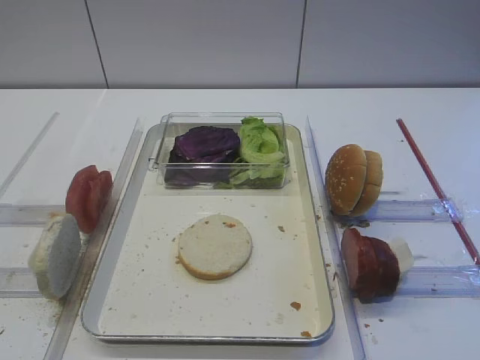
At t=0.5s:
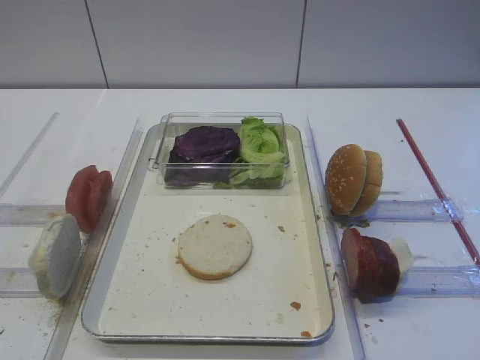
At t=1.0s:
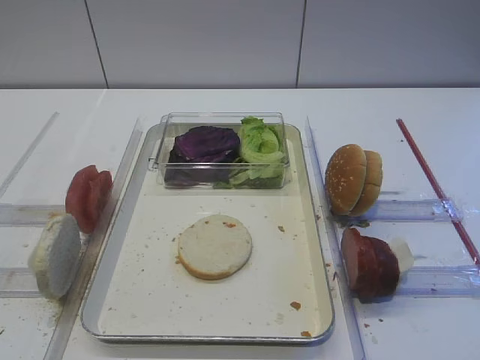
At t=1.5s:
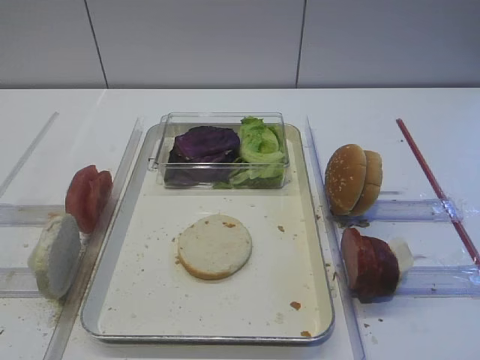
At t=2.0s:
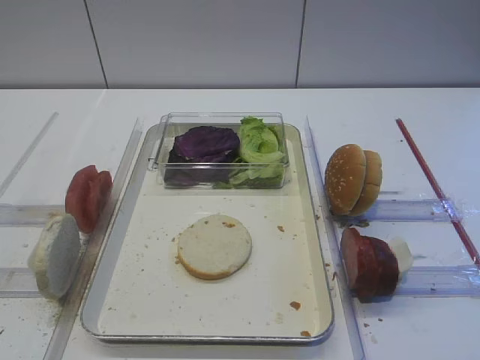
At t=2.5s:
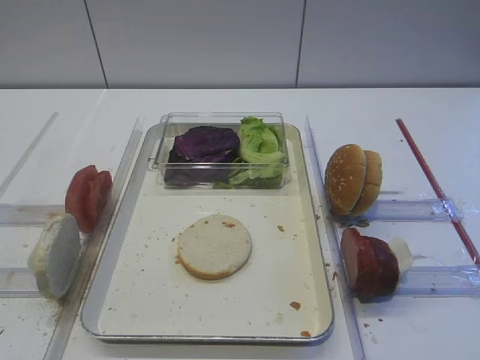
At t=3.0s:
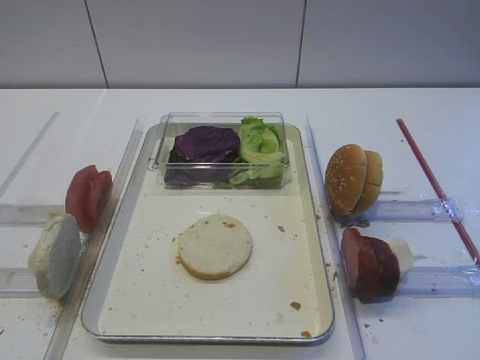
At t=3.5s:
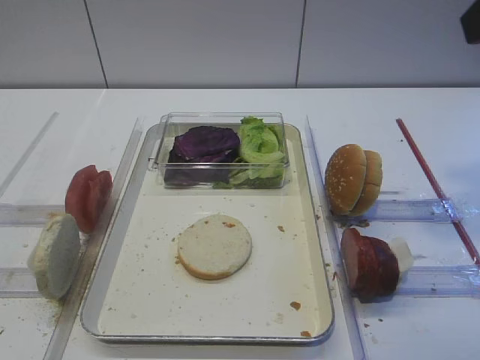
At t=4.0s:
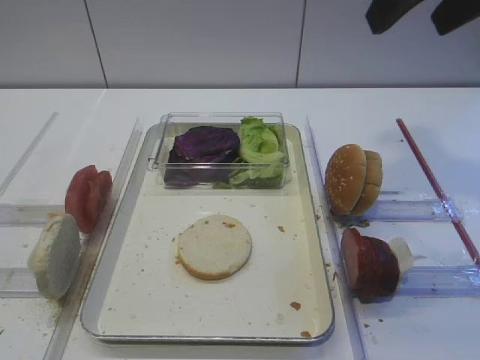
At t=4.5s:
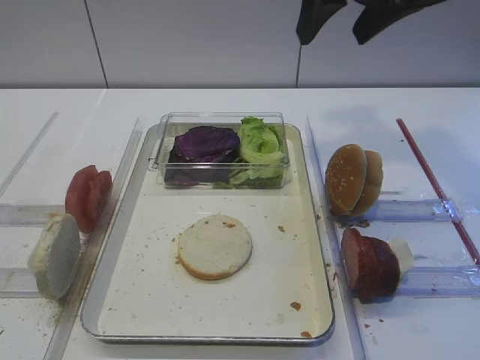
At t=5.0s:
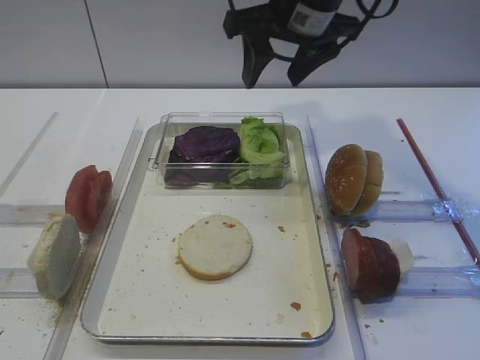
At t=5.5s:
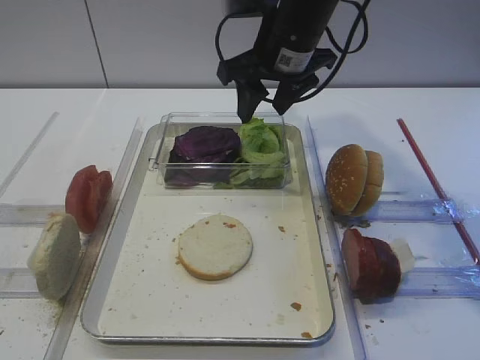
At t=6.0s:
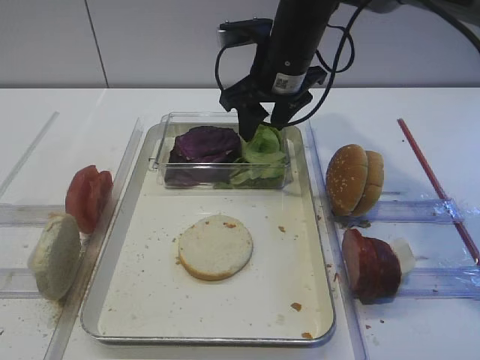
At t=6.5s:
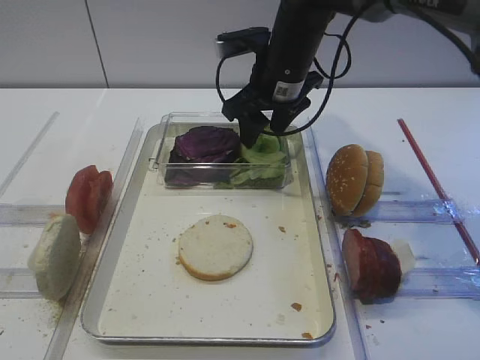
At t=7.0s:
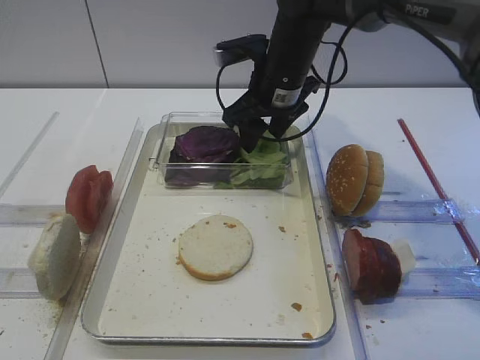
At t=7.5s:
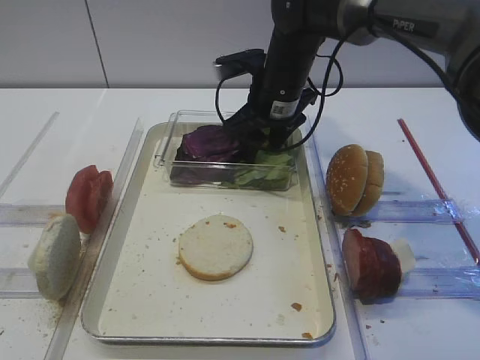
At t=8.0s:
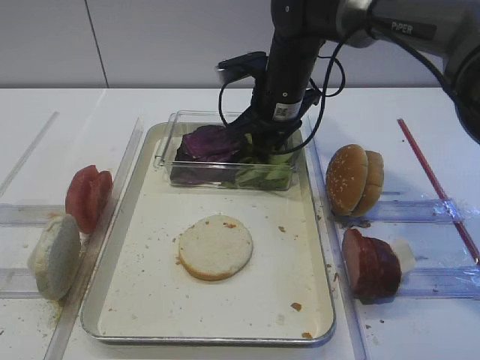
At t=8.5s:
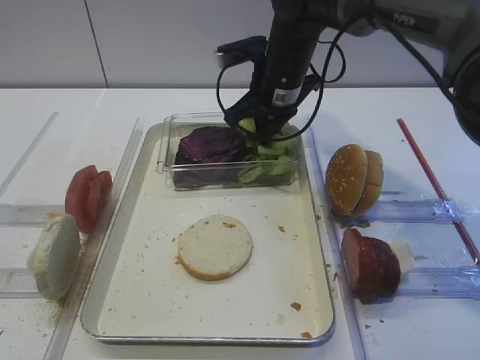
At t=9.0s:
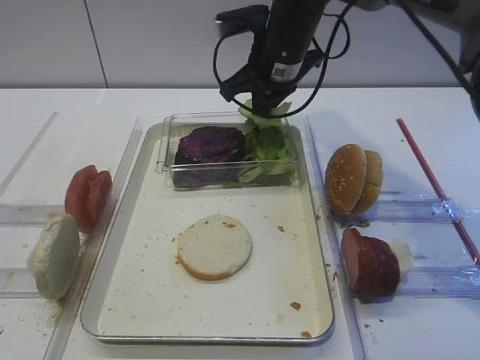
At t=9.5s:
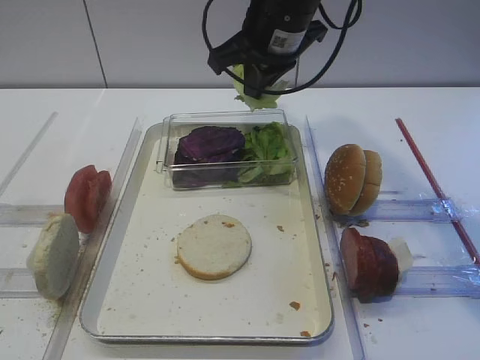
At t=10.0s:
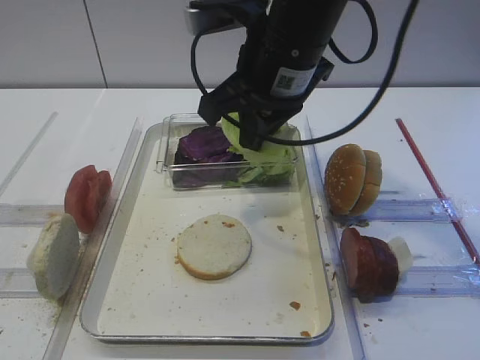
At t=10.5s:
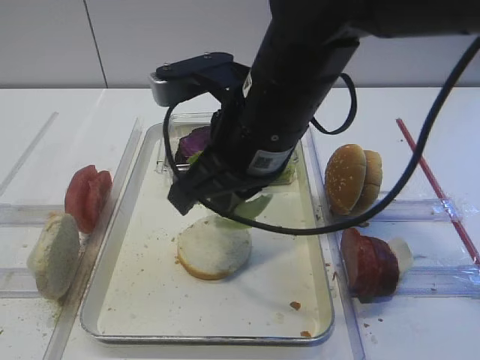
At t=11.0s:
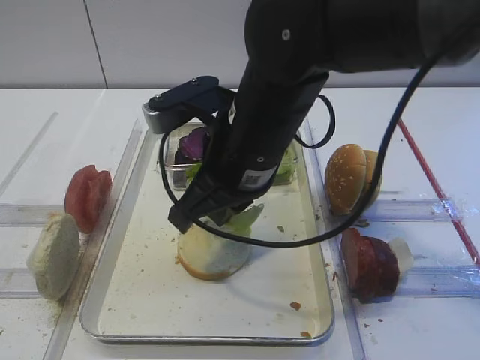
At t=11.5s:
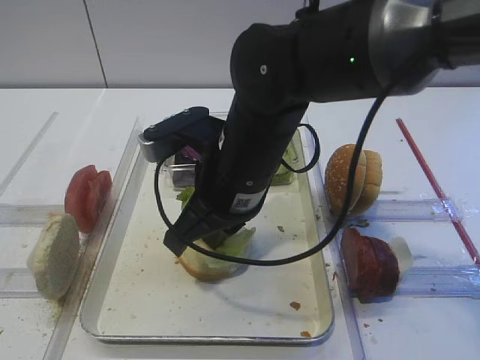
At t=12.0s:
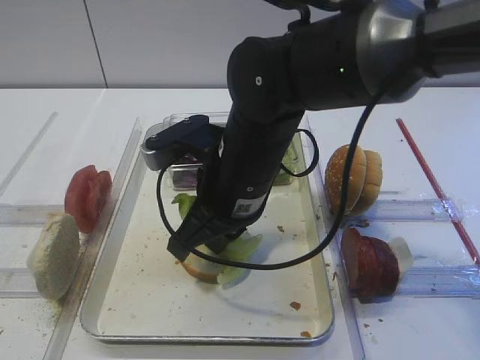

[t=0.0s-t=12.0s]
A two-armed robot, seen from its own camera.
Step, t=0.0s to t=9.0s: Pick up the lettuce leaf with the right gripper.
t=2.0s to t=4.0s: The right gripper is displaced forward by approximately 30 cm.
t=4.0s to t=6.0s: The right gripper travels forward, downward and to the left by some 25 cm.
t=6.0s to t=8.0s: The grippers move only a little.
t=8.0s to t=10.0s: The right gripper goes approximately 15 cm backward and upward.
t=10.0s to t=12.0s: The right gripper shifts some 10 cm downward.

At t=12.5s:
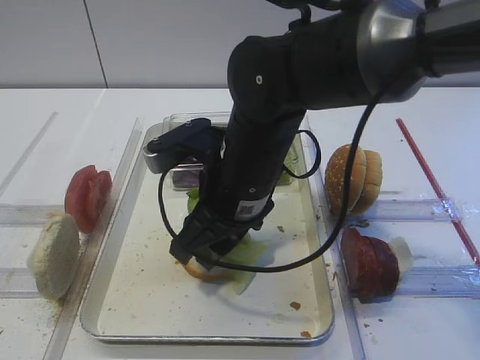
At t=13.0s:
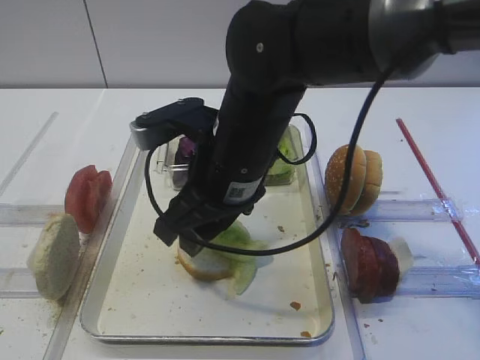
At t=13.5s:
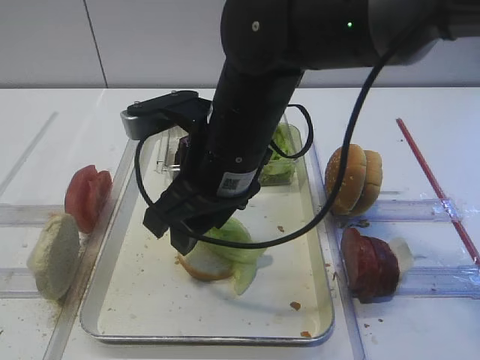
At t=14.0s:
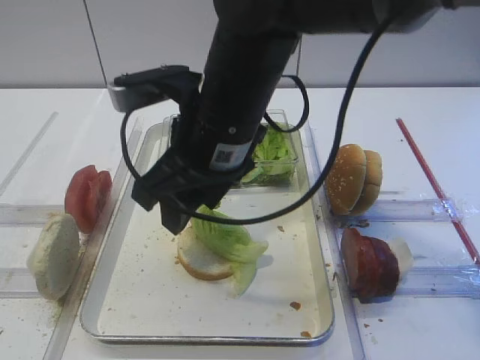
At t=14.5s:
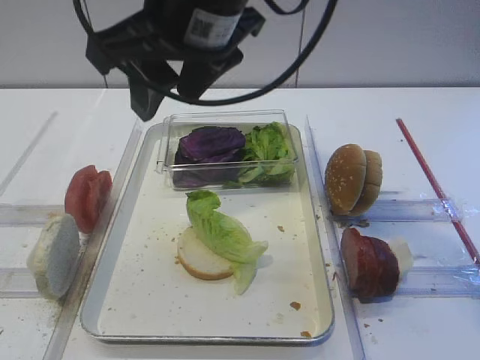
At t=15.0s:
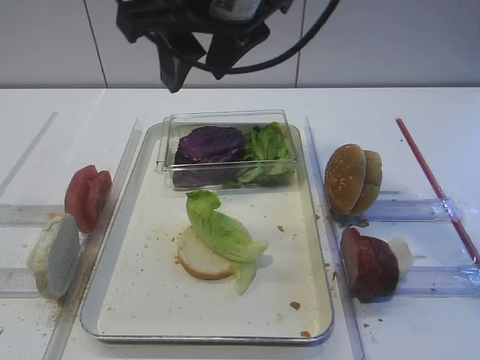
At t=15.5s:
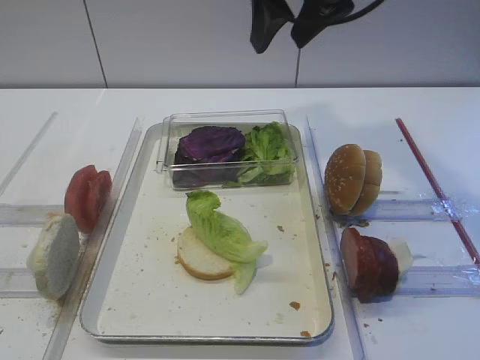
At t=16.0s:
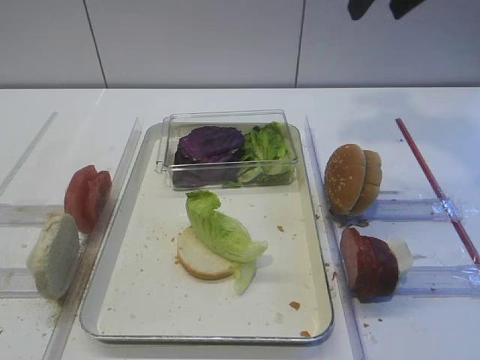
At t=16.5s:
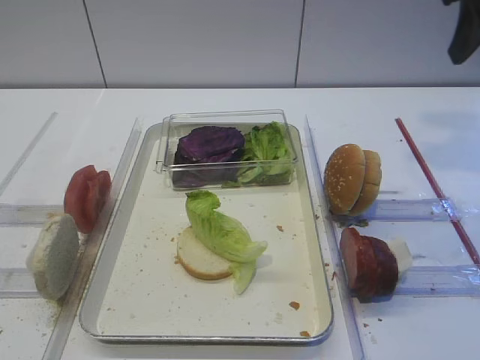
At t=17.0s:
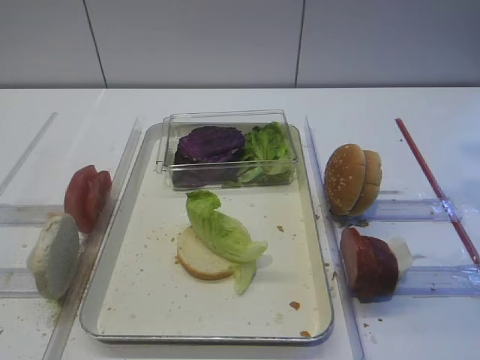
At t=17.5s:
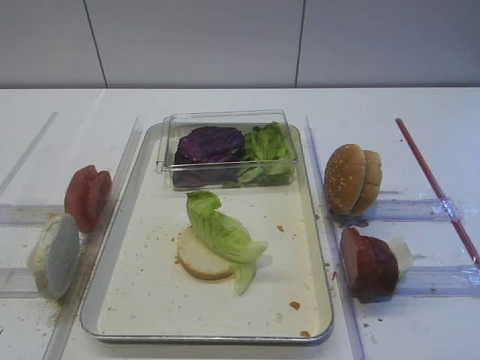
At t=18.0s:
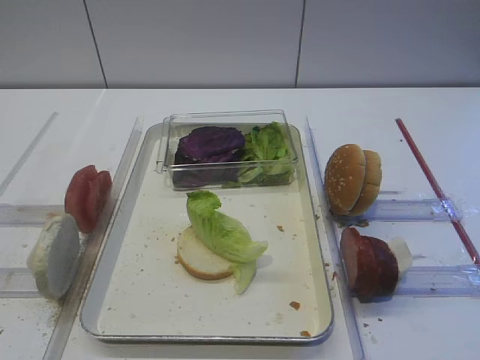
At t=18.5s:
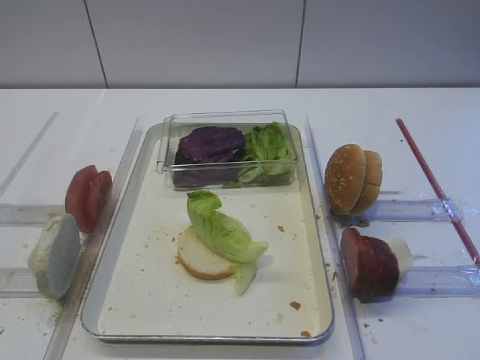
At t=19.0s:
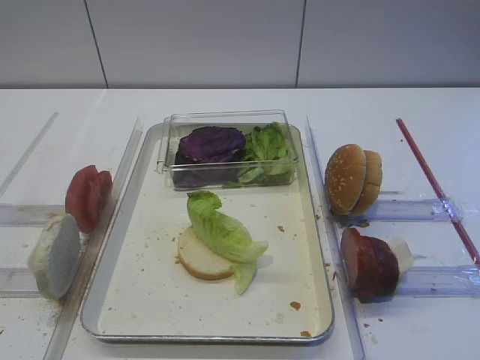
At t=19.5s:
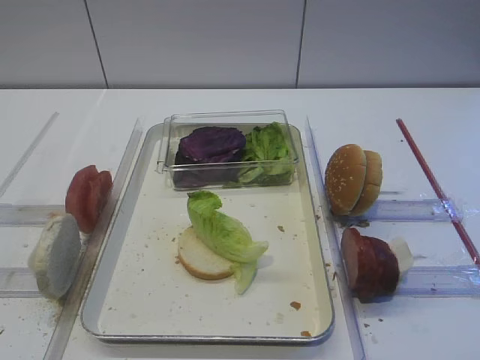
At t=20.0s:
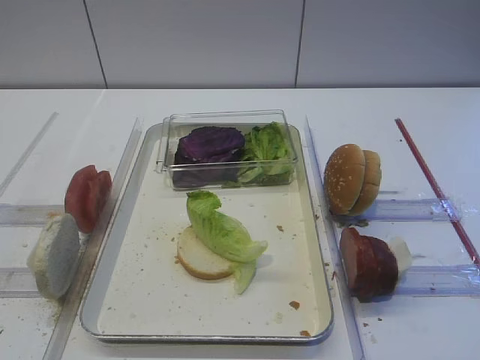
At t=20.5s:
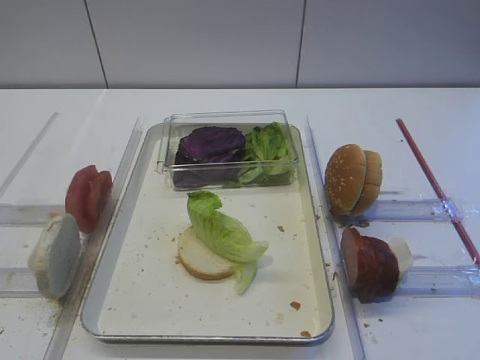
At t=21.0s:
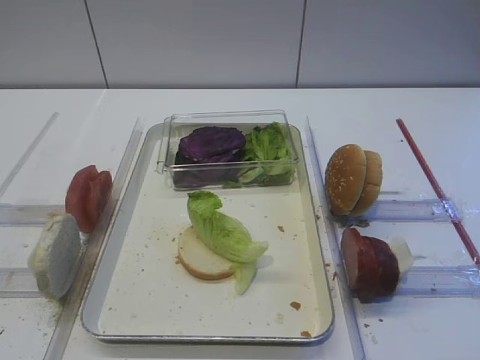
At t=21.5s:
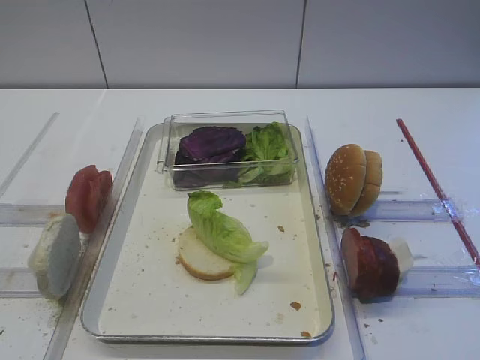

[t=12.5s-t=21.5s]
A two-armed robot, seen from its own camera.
t=12.5s to t=14.5s: The right gripper shifts about 15 cm upward.
t=14.5s to t=17.0s: The right gripper travels to the right by approximately 30 cm.
t=19.5s to t=21.5s: The two grippers keep their place.

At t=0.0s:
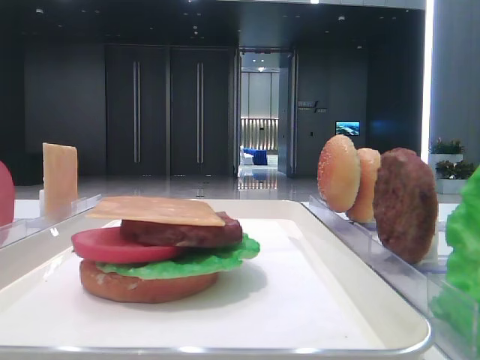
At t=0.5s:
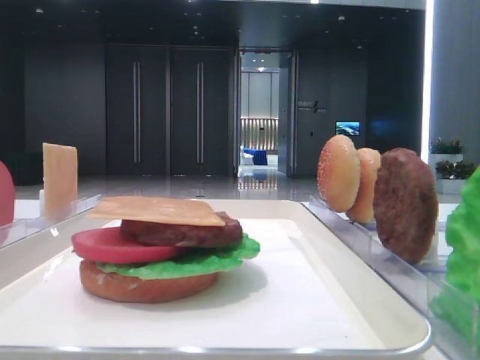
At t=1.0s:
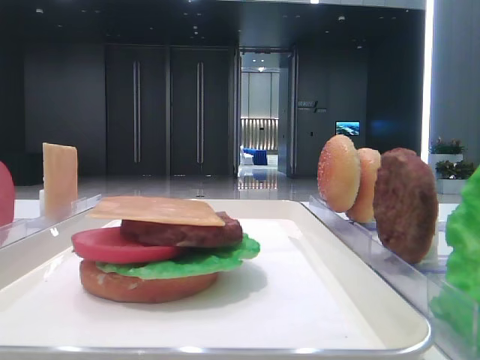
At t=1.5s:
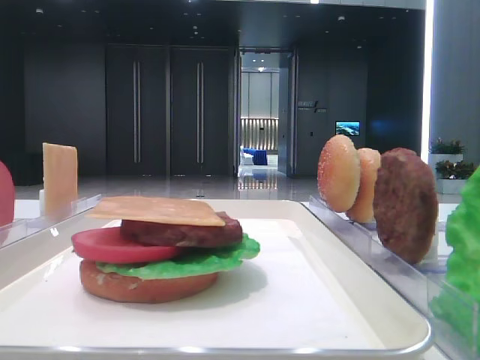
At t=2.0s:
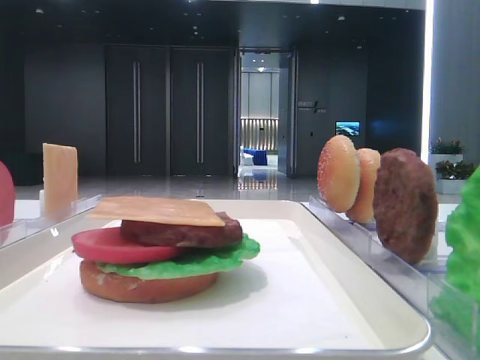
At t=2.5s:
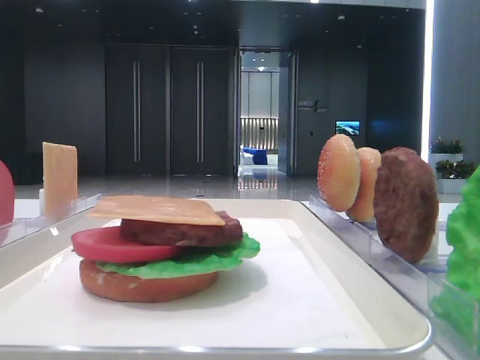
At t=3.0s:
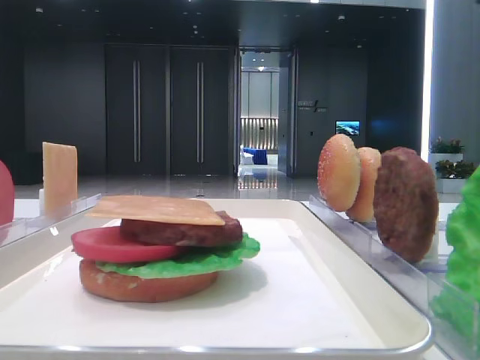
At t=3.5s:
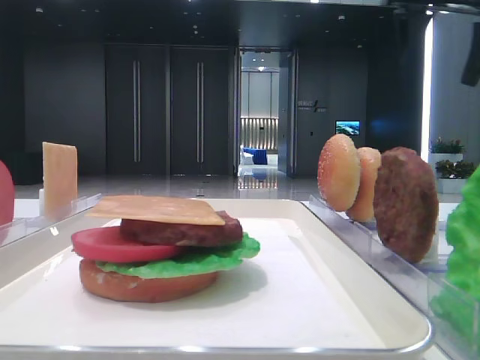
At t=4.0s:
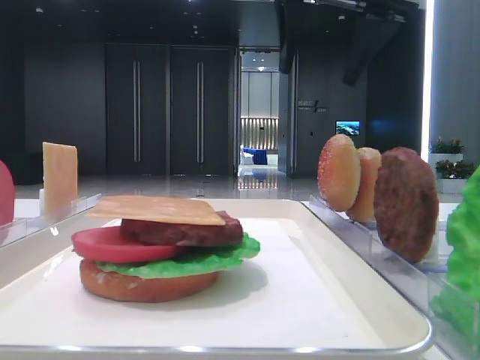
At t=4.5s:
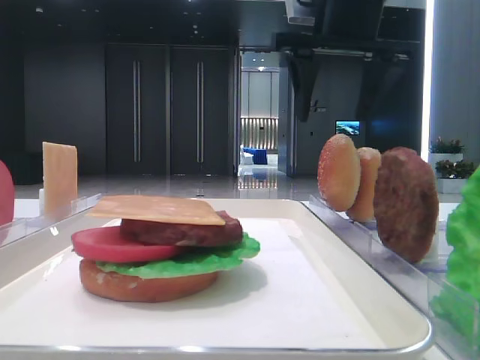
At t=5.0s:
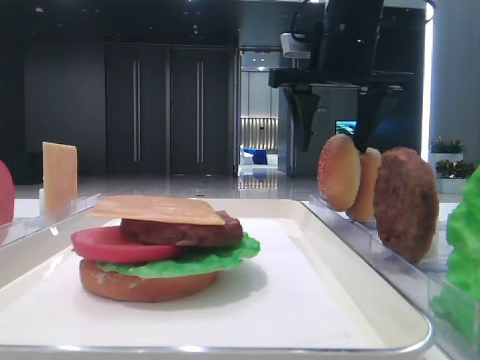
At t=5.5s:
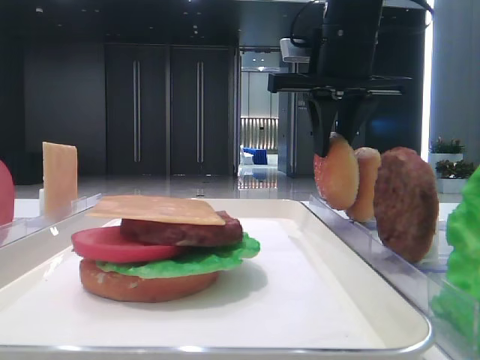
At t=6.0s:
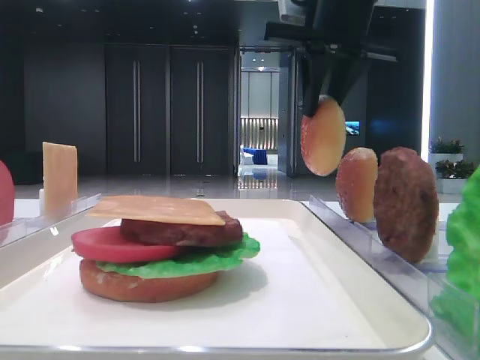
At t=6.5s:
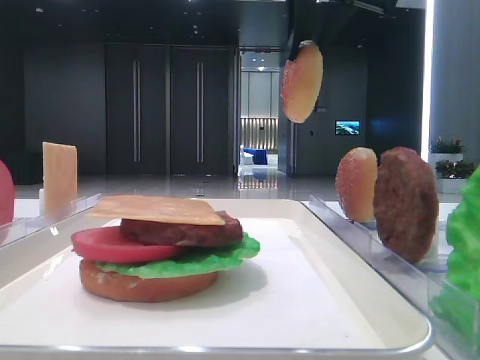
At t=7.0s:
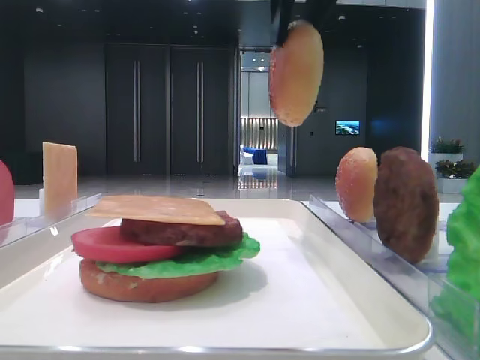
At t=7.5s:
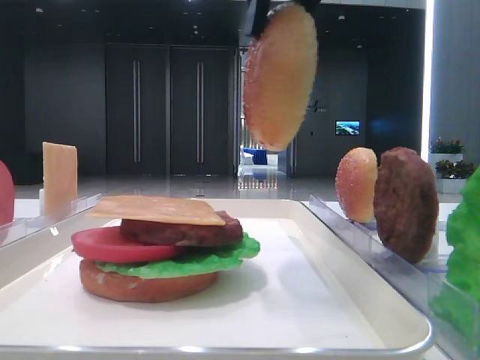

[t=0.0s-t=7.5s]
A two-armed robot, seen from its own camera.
Step, t=0.0s to t=5.5s: Pick up the top bread slice with the right hand.
t=2.0s to t=4.0s: The left gripper closes, while the right gripper travels forward and to the left by some 35 cm.
t=4.0s to t=5.5s: The right gripper shifts some 5 cm downward, and closes up.
t=5.5s to t=7.5s: The right gripper shifts approximately 20 cm backward and upward.
